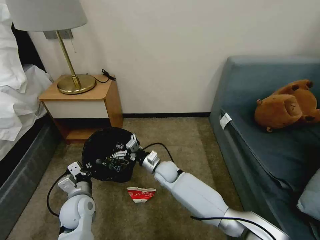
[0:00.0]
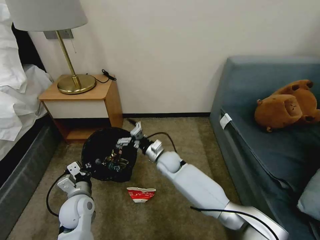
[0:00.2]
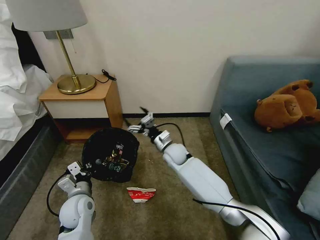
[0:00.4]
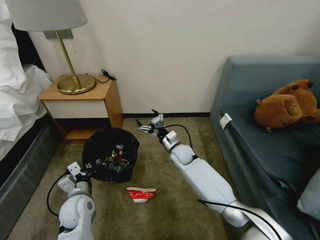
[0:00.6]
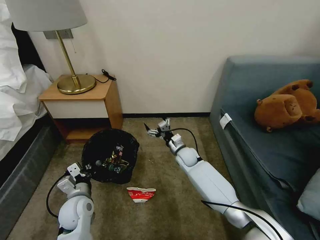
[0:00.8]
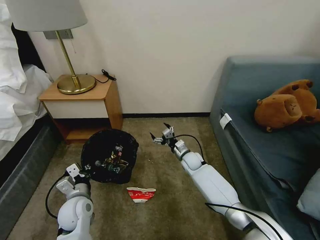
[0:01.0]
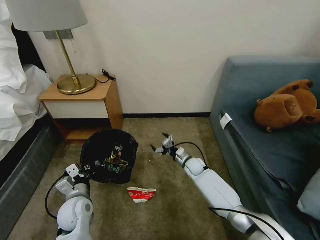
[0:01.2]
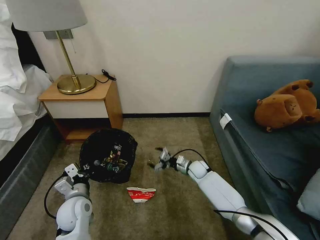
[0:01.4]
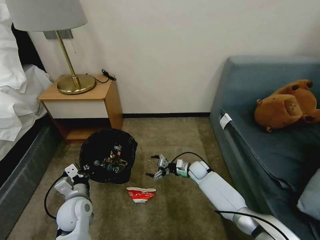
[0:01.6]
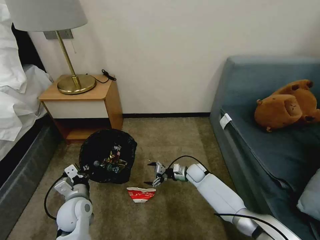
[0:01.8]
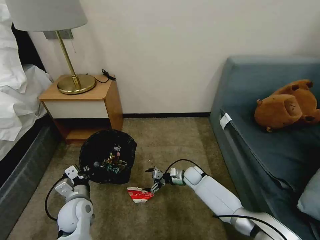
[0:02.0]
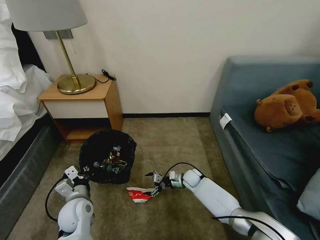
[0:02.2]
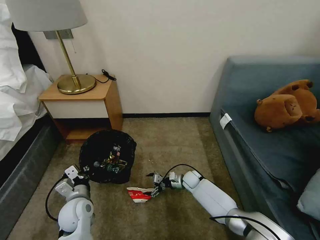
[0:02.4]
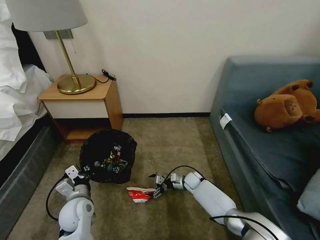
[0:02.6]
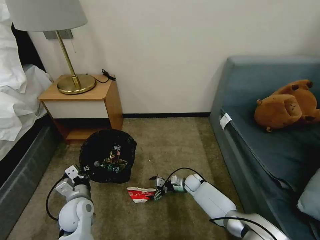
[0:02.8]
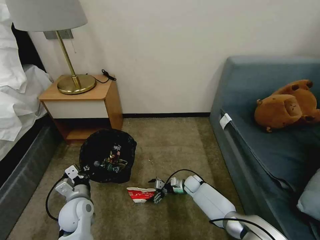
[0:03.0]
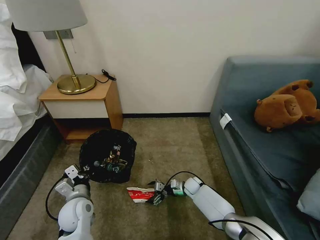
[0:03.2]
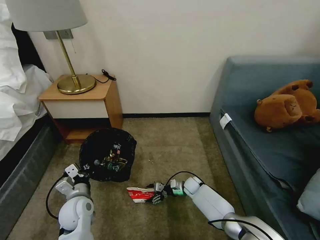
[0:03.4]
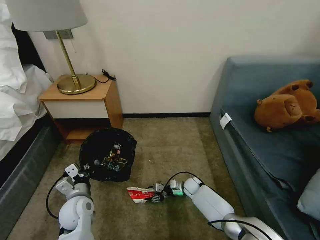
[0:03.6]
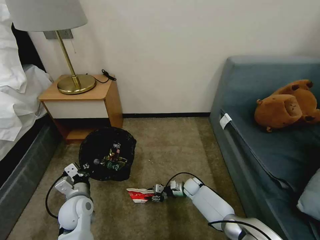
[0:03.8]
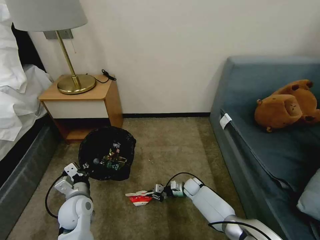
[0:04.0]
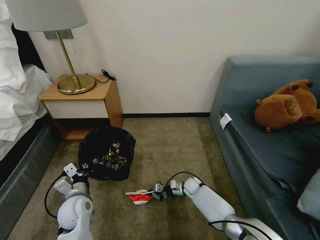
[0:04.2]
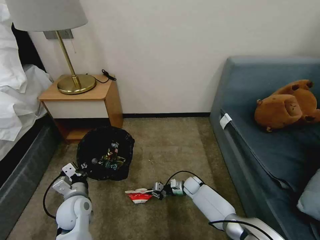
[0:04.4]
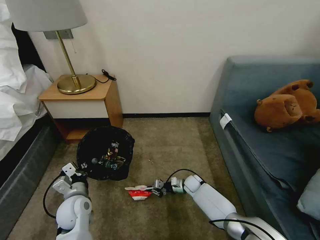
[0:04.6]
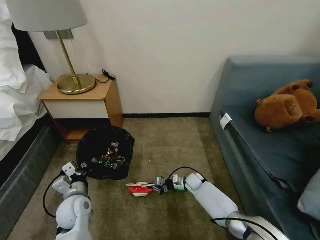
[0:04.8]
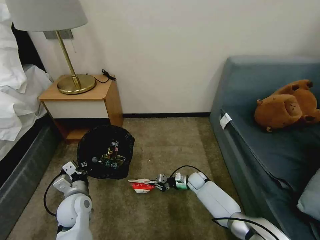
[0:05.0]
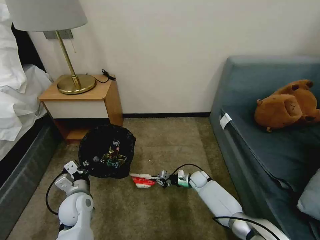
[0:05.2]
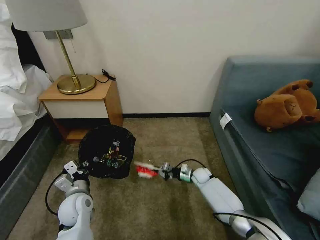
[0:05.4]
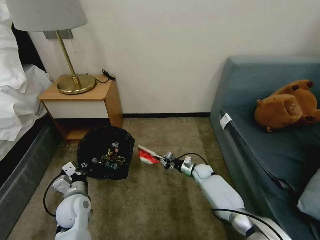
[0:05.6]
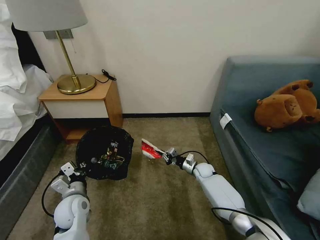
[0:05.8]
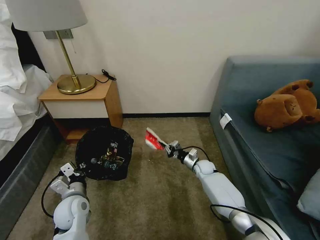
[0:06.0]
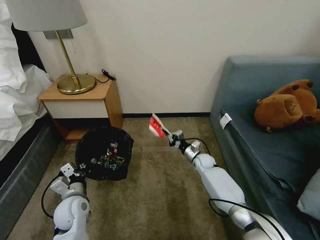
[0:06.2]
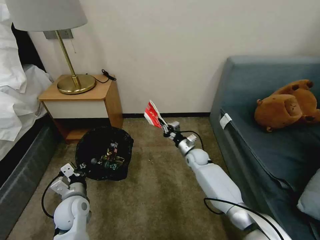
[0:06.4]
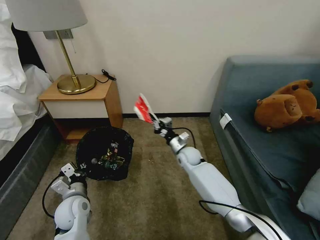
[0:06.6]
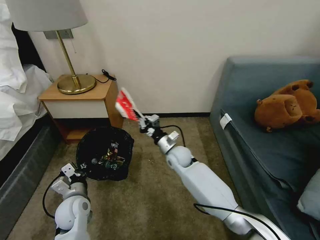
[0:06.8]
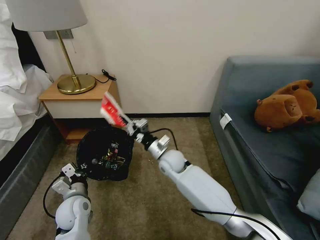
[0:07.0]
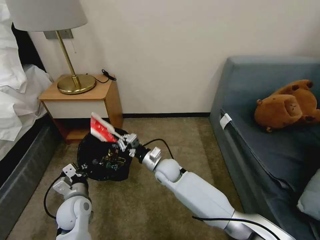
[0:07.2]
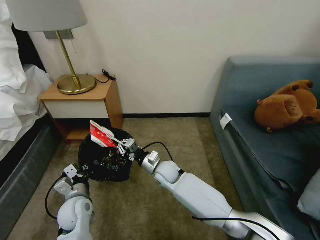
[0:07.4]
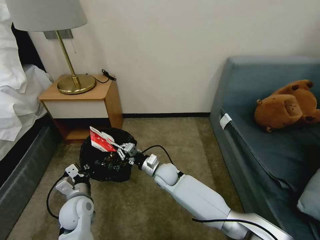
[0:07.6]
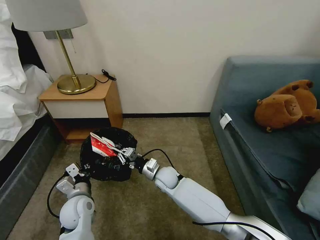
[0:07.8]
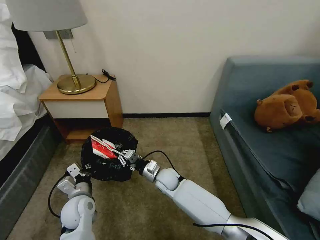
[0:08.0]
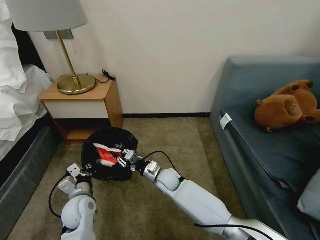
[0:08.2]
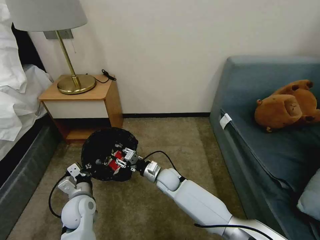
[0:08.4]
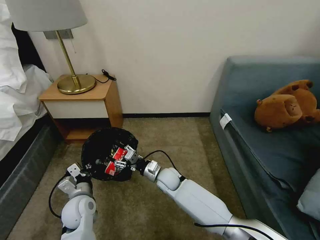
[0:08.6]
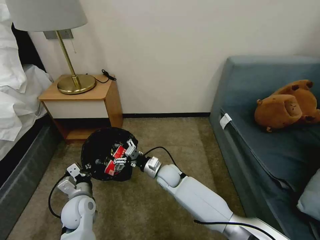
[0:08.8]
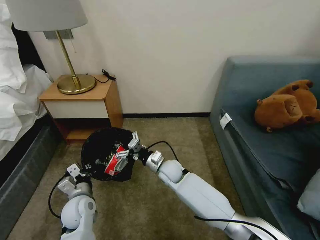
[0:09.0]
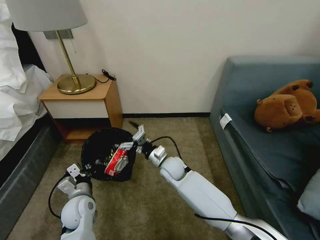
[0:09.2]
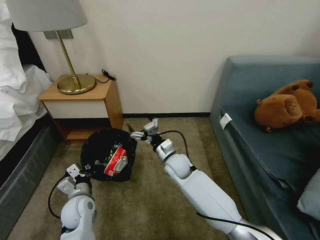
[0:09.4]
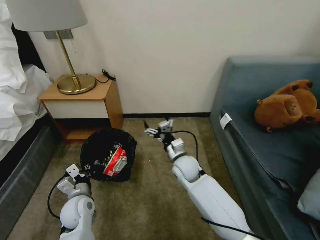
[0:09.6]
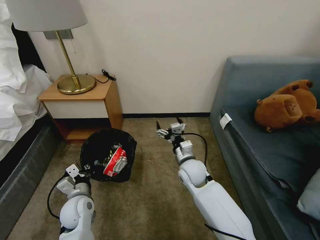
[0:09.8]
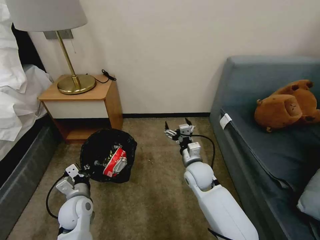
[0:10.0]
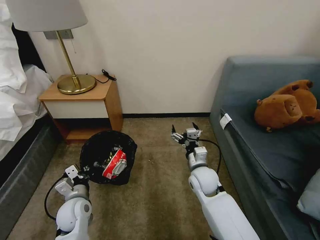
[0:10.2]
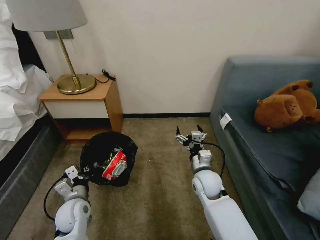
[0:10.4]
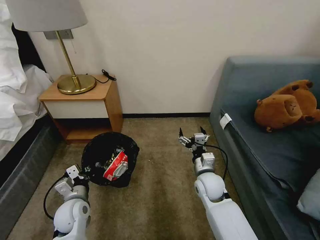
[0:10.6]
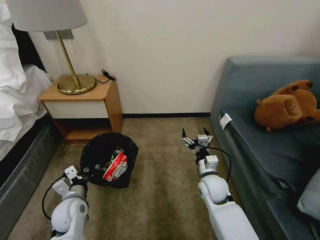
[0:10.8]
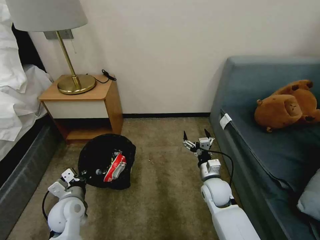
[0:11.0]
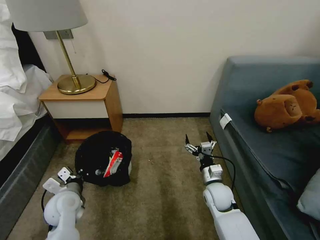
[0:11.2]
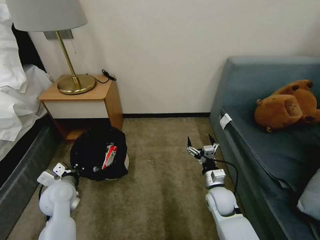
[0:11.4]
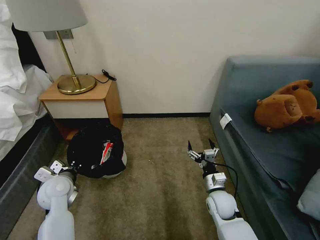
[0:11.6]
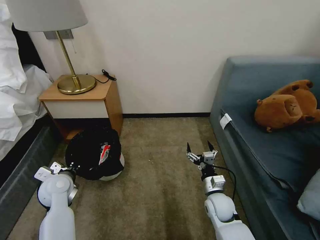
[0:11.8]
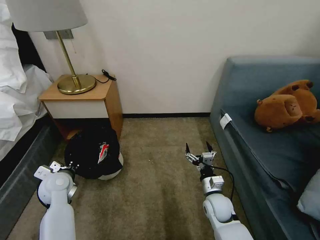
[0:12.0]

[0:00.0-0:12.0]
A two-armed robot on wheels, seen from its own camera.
Task of the whole recording: Pick up the trash bin, then pick up the garbage on the floor and place it into the trash bin.
0:00.0 to 0:01.6: The right gripper travels to the right and downward by approximately 20 cm.
0:01.6 to 0:03.0: The right gripper heads downward, covering about 10 cm.
0:03.0 to 0:04.4: The right gripper closes up.
0:04.4 to 0:06.0: The right gripper is displaced upward, forward and to the right by about 10 cm.
0:06.0 to 0:07.6: The right gripper goes roughly 20 cm to the left and upward.
0:07.6 to 0:09.0: The right gripper opens its fingers.
0:09.0 to 0:10.4: The right gripper heads to the right and backward, covering about 15 cm.
0:10.4 to 0:12.0: The right gripper shifts approximately 10 cm downward and backward; the left gripper is displaced forward, to the left and upward by approximately 10 cm.

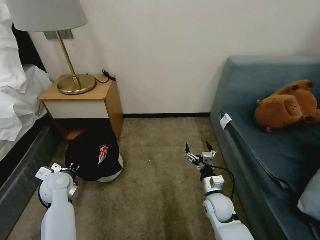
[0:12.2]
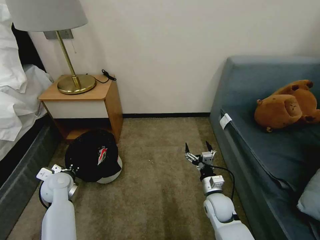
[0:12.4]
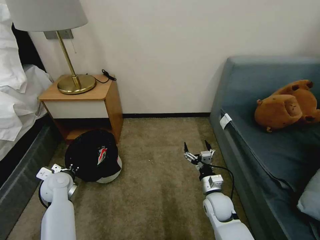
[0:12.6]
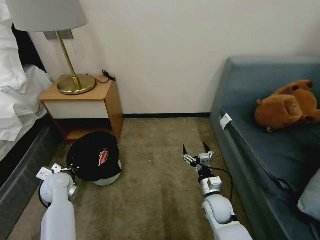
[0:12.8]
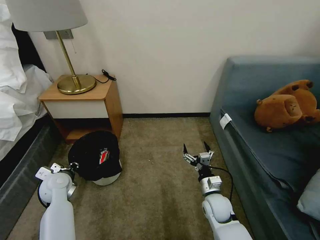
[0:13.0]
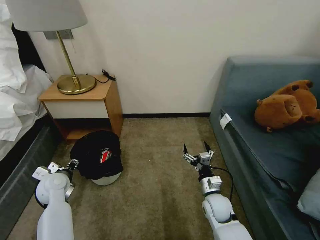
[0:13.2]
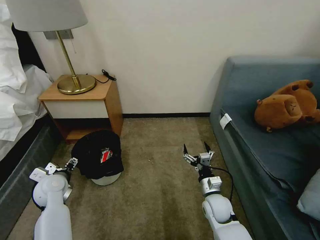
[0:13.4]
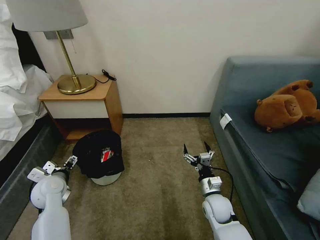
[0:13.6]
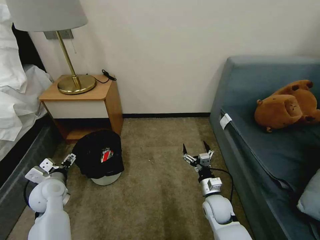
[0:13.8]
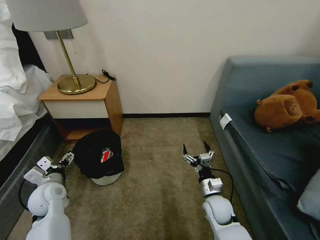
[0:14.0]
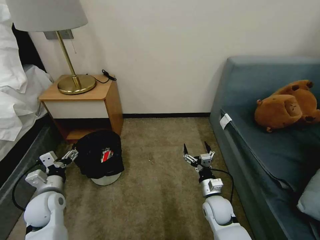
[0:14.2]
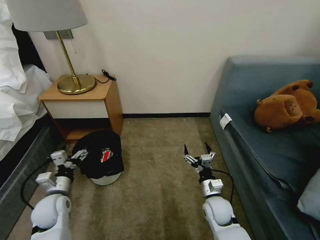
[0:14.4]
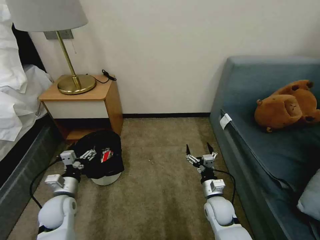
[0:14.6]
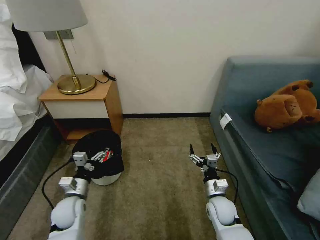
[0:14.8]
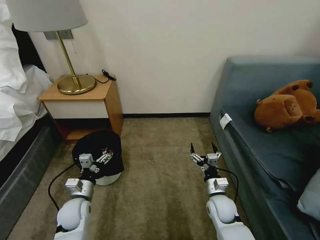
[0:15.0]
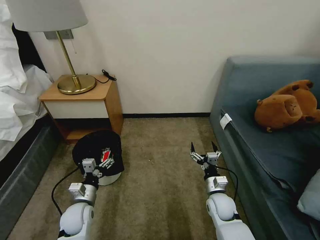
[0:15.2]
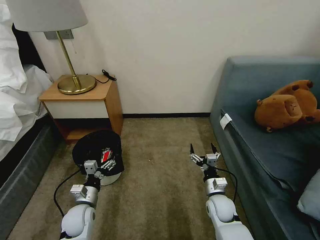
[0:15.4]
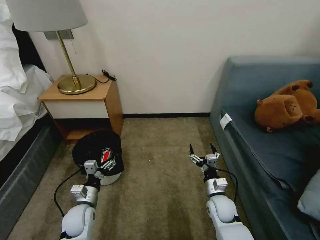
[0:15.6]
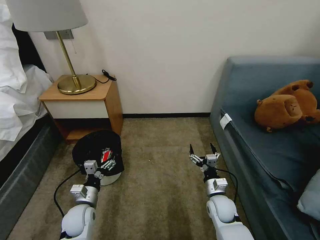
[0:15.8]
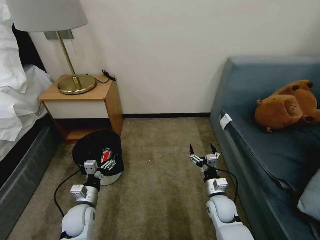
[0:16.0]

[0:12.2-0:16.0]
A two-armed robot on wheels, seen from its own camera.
Task of the whole recording: Pick up the trash bin, then pick up the garbage on the floor and place it into the trash bin.
0:12.2 to 0:13.4: The left gripper opens up.
0:13.4 to 0:14.8: The left gripper moves to the right and downward, roughly 10 cm.
0:14.8 to 0:16.0: The grippers stay close to where they were, moving slightly.
